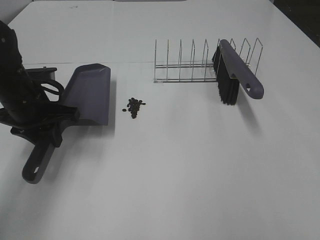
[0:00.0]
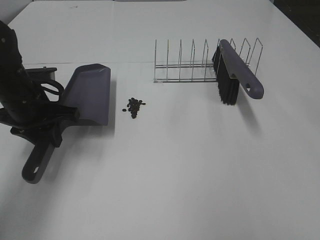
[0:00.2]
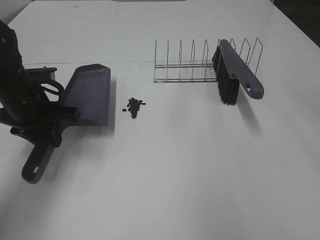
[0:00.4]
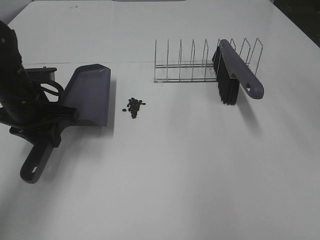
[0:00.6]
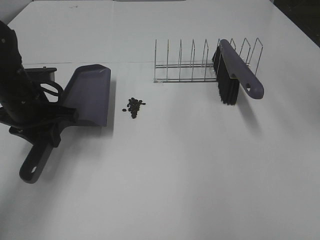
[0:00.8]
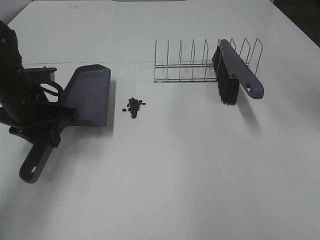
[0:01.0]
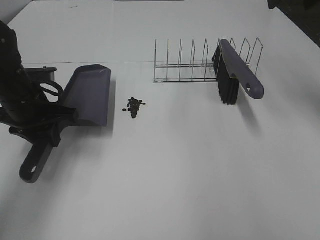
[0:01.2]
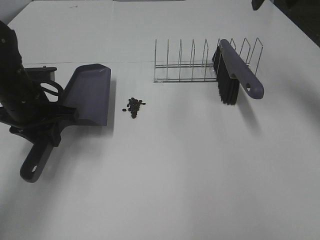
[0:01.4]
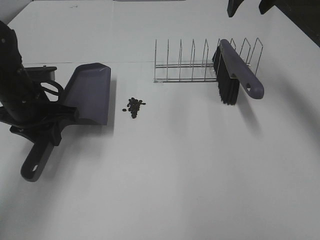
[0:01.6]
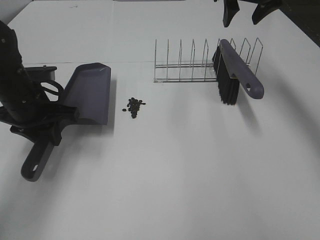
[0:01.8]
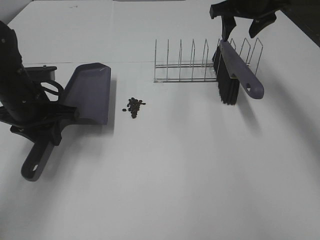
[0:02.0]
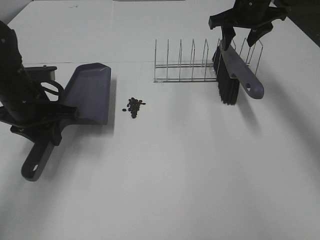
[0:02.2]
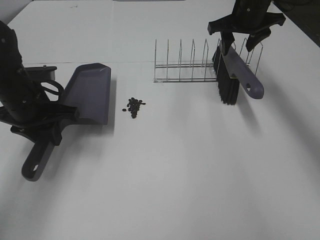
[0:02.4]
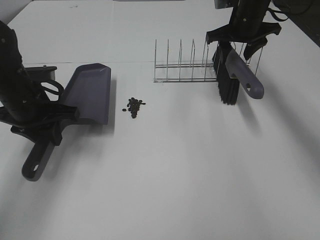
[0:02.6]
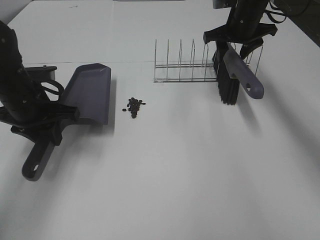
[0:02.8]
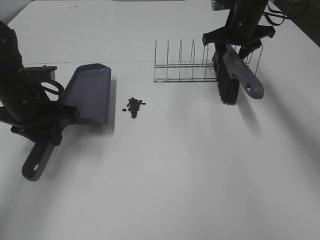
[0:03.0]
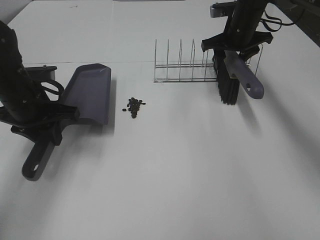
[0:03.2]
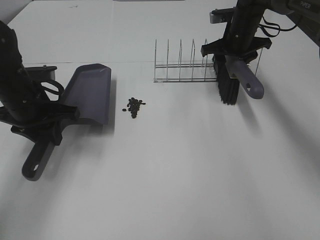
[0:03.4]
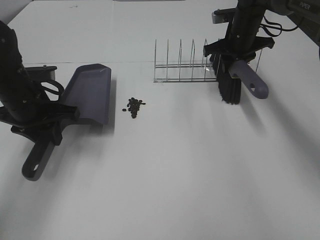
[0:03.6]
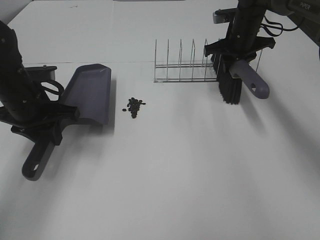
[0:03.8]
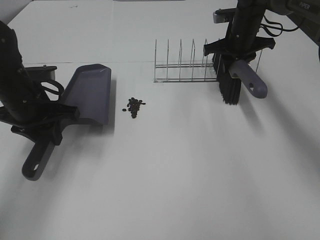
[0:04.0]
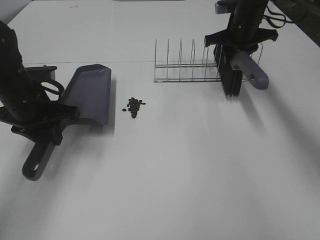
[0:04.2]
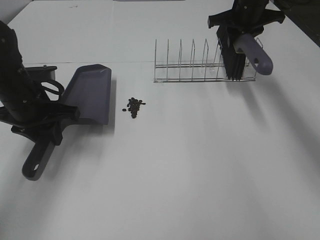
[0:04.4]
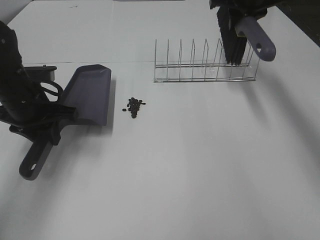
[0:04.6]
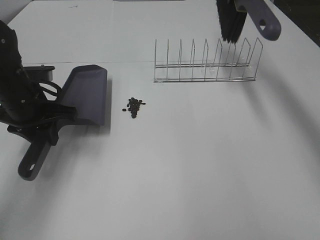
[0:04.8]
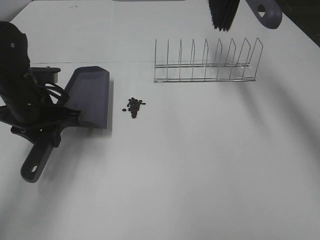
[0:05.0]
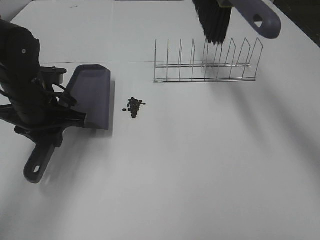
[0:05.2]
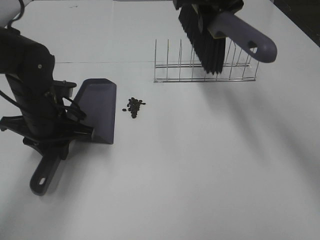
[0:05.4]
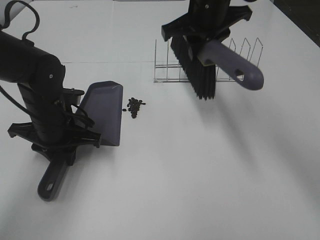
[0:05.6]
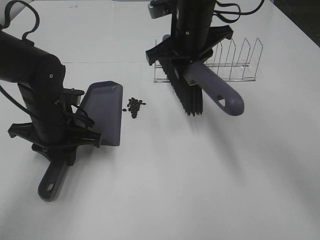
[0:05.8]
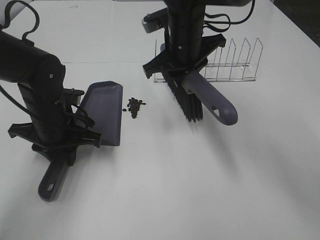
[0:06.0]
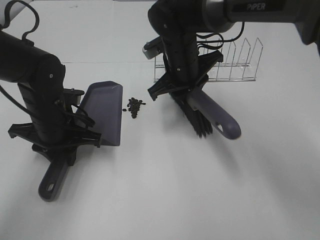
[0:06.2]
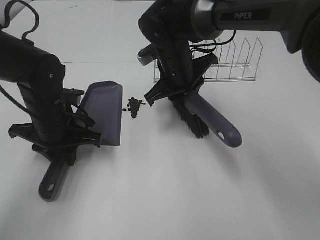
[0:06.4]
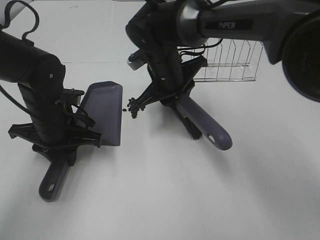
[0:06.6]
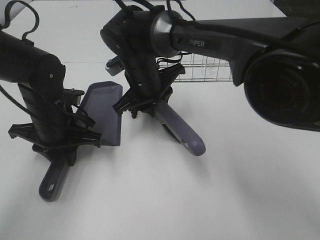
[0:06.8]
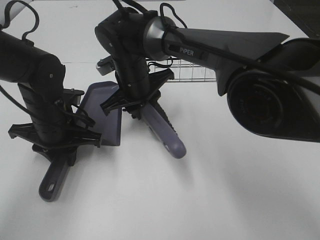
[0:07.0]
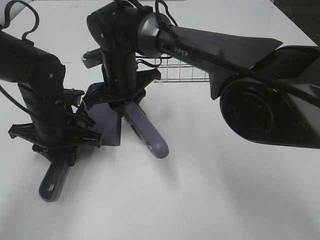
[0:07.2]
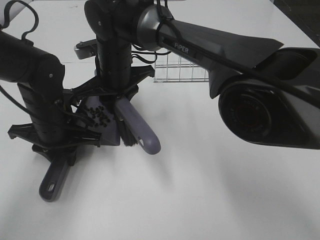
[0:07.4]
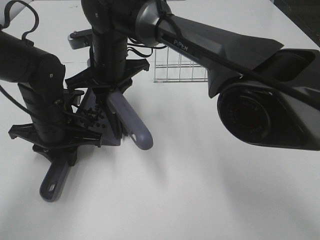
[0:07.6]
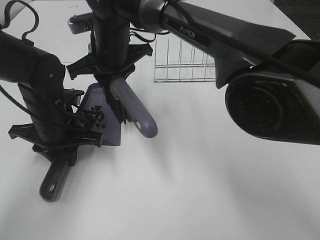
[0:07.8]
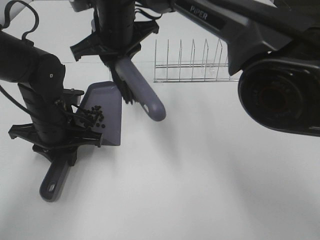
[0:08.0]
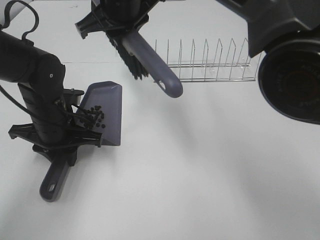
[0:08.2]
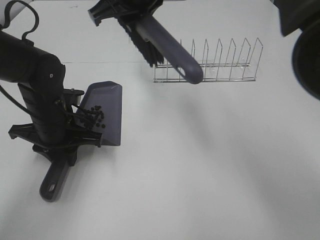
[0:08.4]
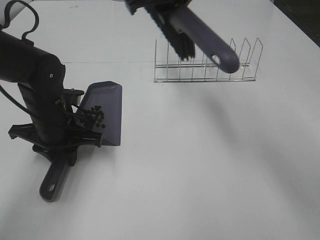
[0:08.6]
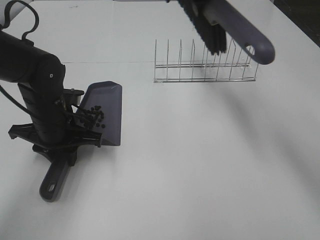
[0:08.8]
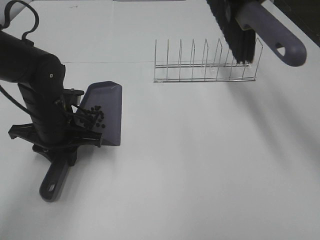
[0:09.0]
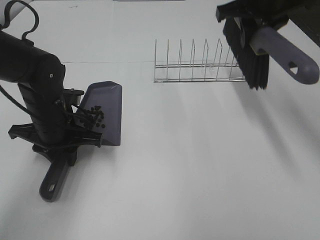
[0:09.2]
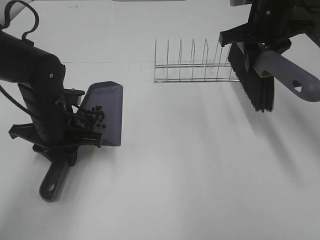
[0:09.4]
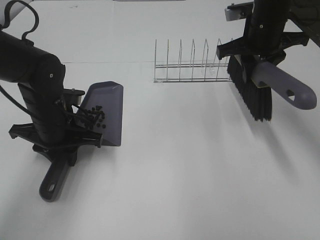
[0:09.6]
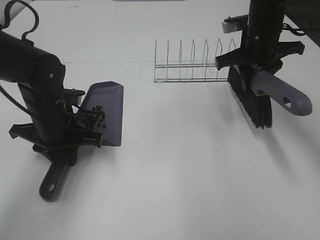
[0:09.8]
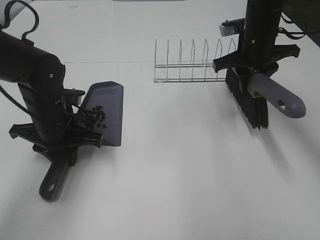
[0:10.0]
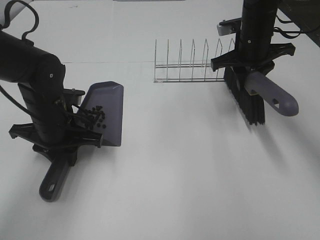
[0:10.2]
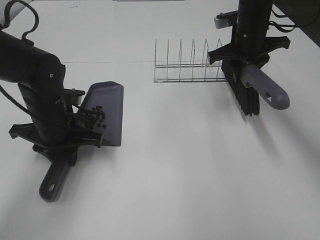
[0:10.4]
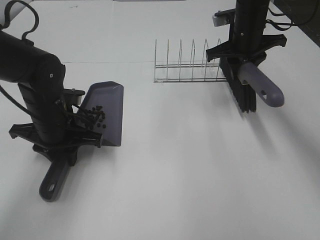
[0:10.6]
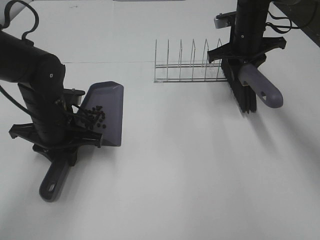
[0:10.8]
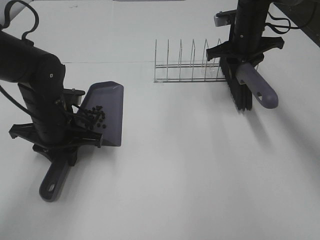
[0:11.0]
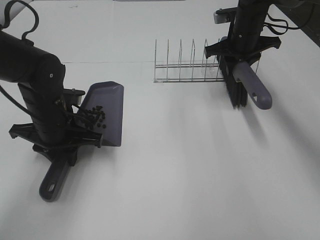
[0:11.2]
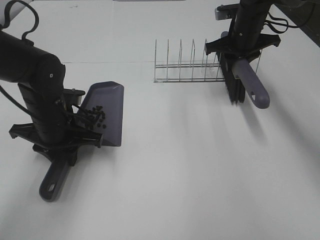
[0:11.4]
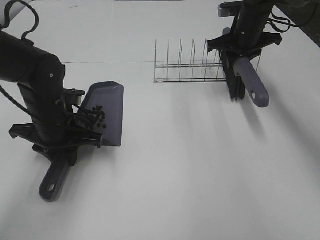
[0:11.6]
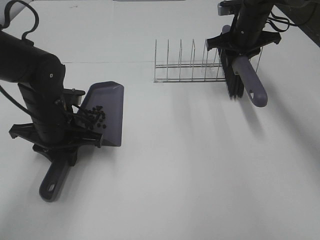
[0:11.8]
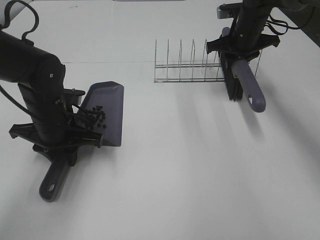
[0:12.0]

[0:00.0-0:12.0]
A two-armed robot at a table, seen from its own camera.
Task of the whole recording: Sweep Coffee Bean.
Step, 0.0 to 3.6 s: Right hand:grab the broom.
Step, 3.8 to 7.6 s: Right hand:sweep the coffee beans into the dustpan.
0.0 to 1.6 s: The right gripper shifts approximately 40 cm forward.
1.6 to 3.0 s: The right gripper travels downward by approximately 15 cm.
3.0 to 4.4 s: The right gripper closes up.
4.4 to 6.0 s: The right gripper travels to the left and backward by some 20 cm, and travels upward and back again, about 15 cm each way. Meanwhile the left gripper shifts by approximately 5 cm.
6.0 to 7.6 s: The right gripper heads to the left, covering some 15 cm.
7.6 to 9.0 s: The right gripper goes roughly 30 cm to the right and upward.
9.0 to 10.4 s: The right gripper travels downward by some 15 cm.
10.4 to 12.0 s: The right gripper moves approximately 5 cm.

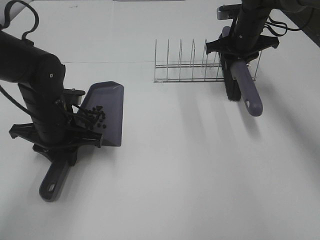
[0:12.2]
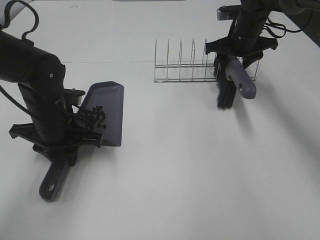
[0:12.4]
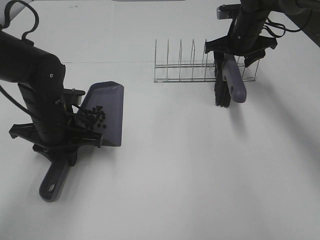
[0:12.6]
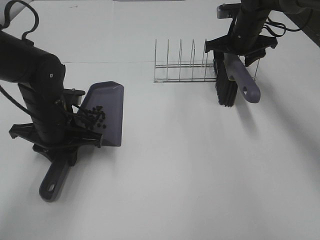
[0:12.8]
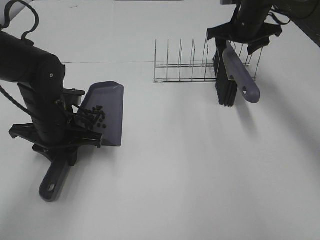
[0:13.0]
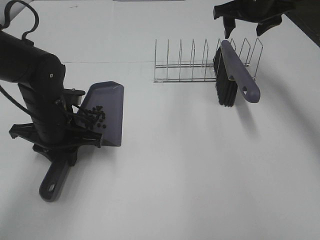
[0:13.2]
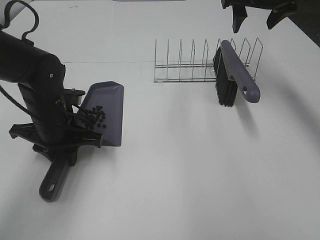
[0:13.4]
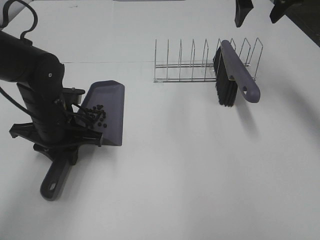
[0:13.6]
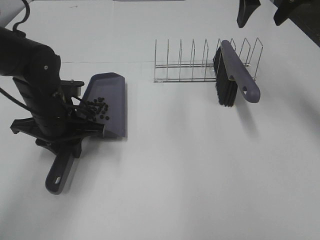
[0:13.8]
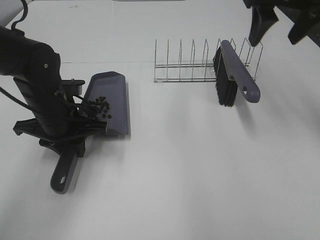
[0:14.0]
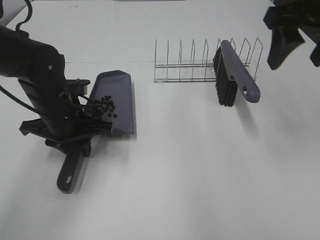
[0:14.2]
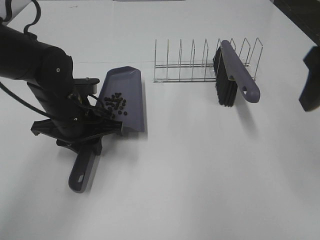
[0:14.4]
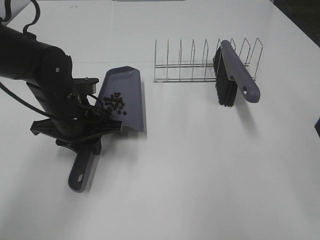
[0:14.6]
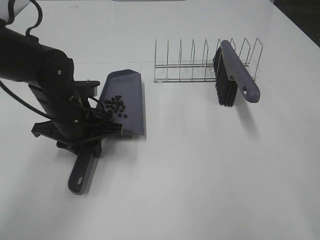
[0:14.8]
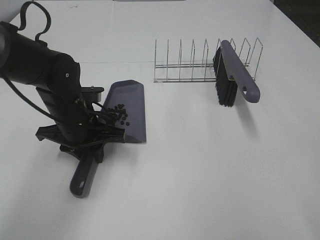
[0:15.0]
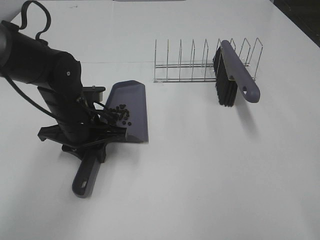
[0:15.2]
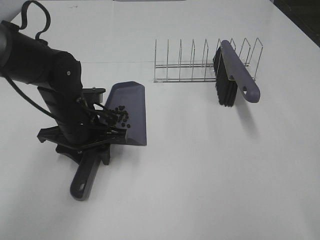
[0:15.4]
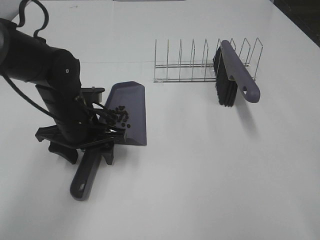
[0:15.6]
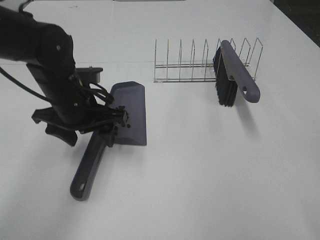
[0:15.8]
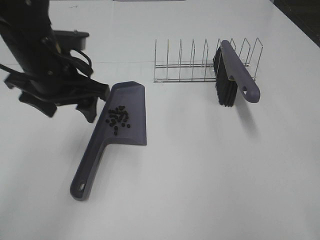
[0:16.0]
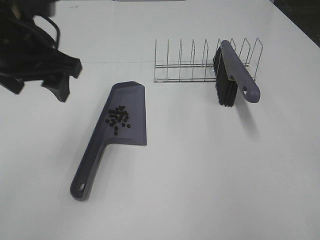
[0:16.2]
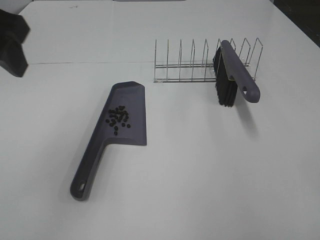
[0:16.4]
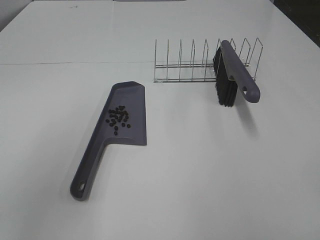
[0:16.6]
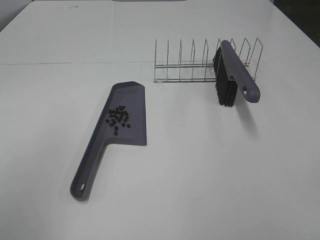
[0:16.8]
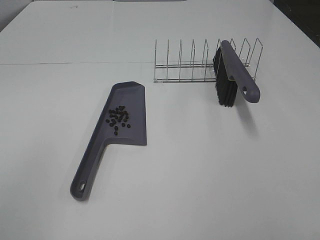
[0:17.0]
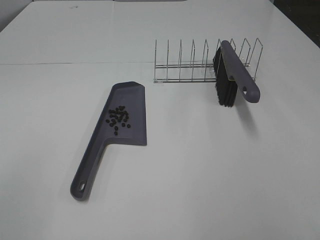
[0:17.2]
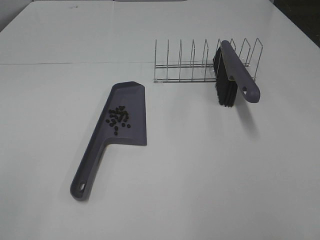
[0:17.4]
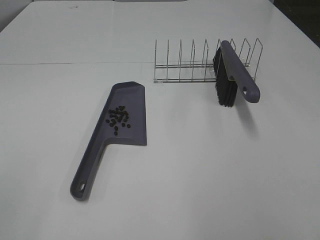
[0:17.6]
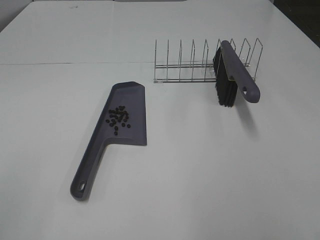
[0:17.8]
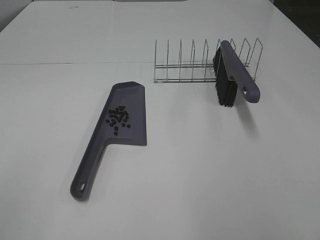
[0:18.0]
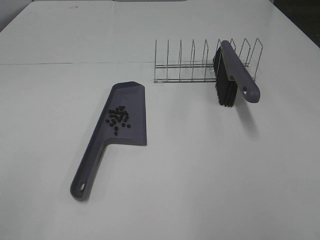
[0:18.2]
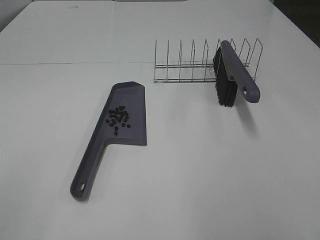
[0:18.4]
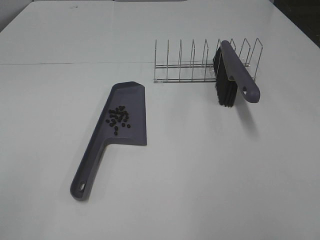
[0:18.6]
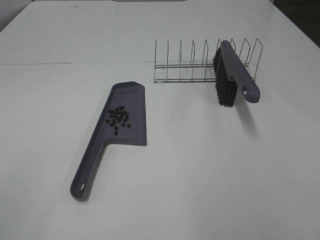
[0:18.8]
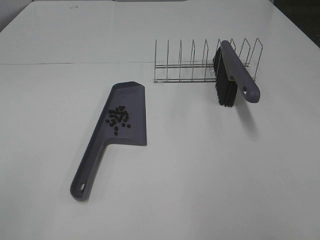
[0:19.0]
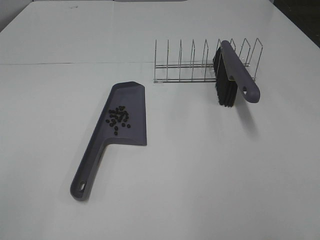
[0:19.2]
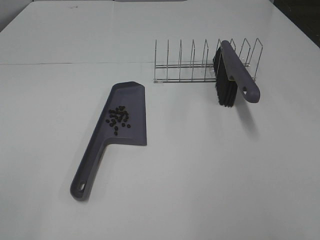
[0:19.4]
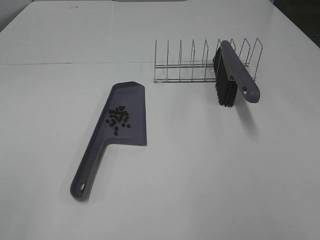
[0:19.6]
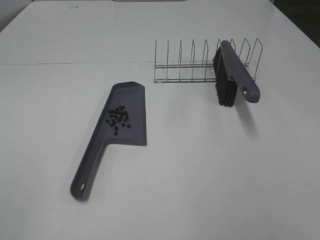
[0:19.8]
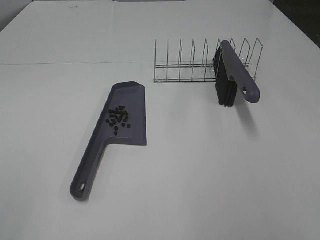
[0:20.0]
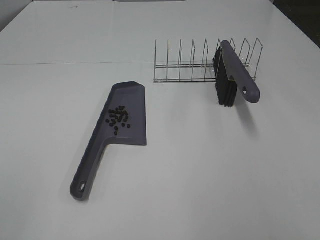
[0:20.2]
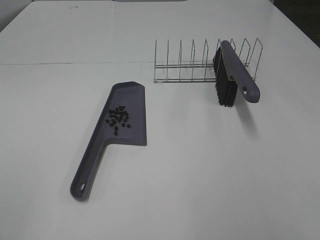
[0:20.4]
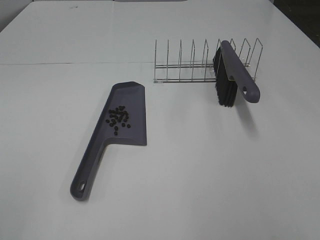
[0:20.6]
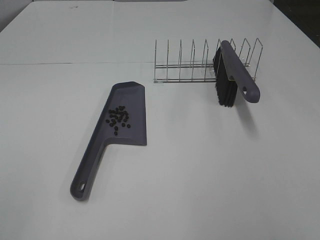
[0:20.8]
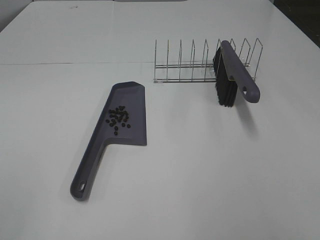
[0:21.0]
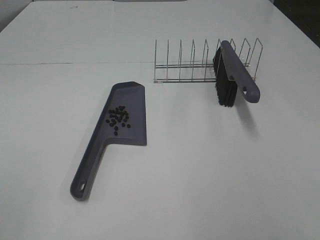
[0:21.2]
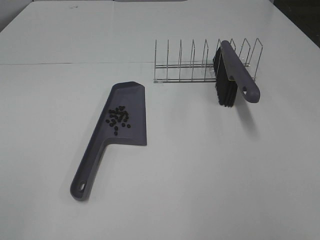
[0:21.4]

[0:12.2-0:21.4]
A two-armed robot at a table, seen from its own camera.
Task of the whole recording: Sweep Coffee Bean.
12.2 to 13.8 s: The right gripper moves upward and backward, some 20 cm, and opens up.
13.8 to 15.2 s: The right gripper shifts about 30 cm backward.
15.2 to 16.8 s: The left gripper is displaced upward, backward and to the left by some 35 cm, and opens; the right gripper shifts about 5 cm backward.
19.8 to 21.4 s: Neither gripper changes place.

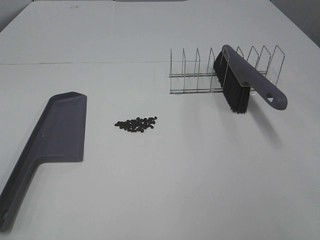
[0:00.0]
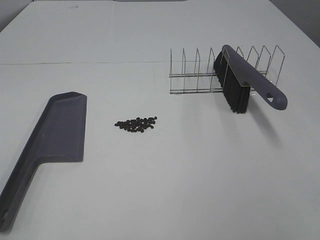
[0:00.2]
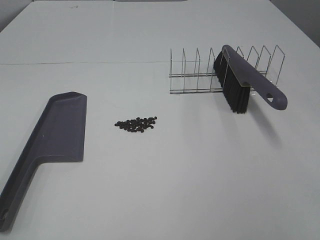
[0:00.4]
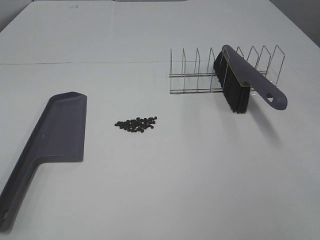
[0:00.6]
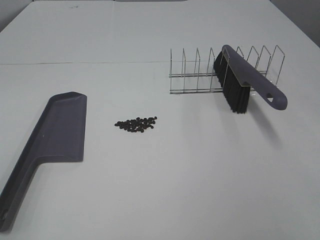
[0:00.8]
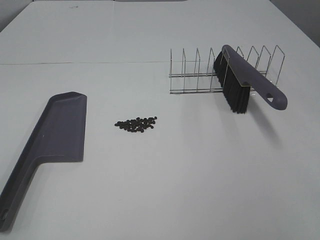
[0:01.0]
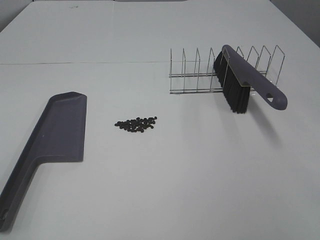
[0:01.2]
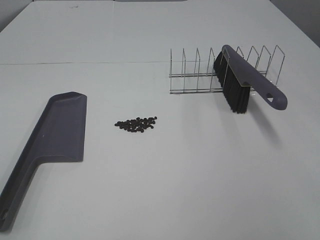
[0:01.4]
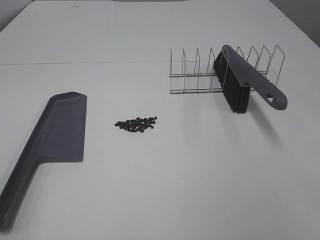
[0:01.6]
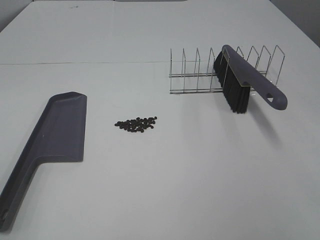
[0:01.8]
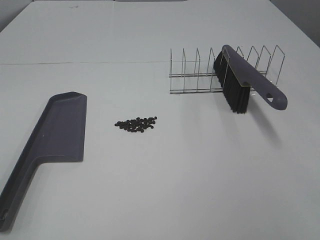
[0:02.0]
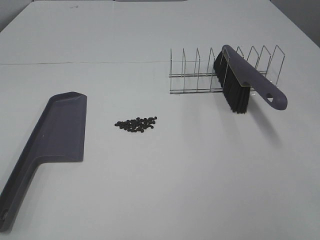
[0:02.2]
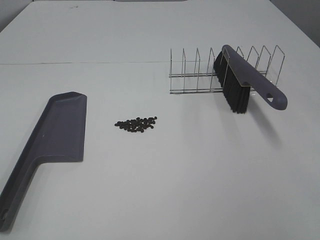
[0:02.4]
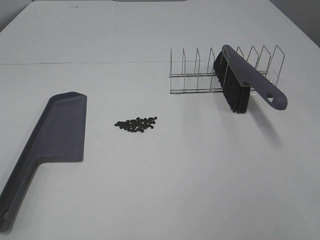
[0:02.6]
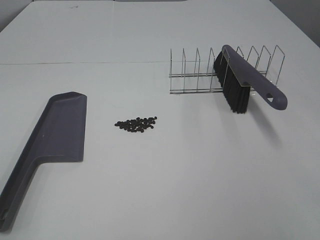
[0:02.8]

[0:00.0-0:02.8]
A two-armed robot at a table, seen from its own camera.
Task of the whole recording: Sweep Coffee Bean.
1.4 to 2.8 s: Both grippers stay put.
